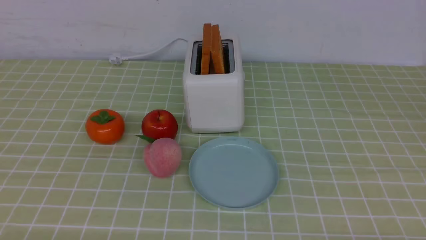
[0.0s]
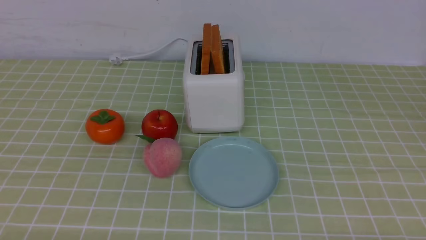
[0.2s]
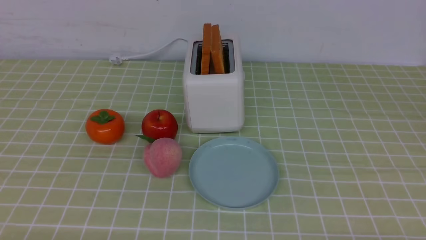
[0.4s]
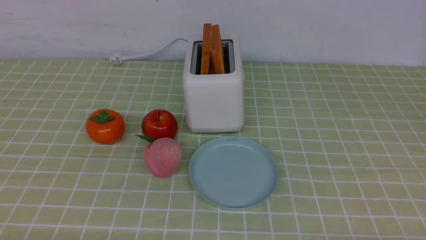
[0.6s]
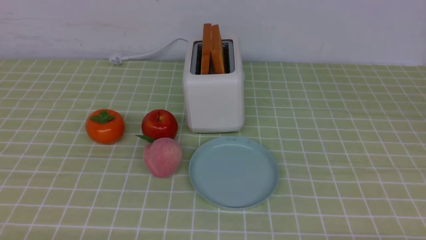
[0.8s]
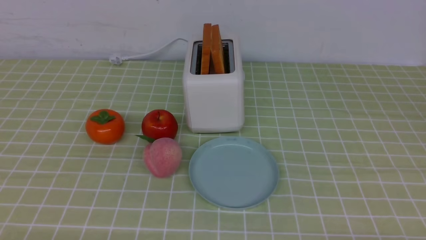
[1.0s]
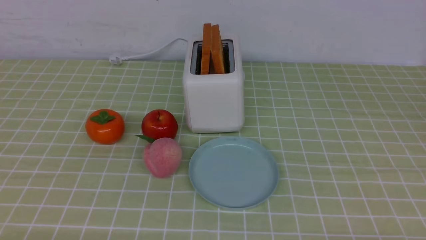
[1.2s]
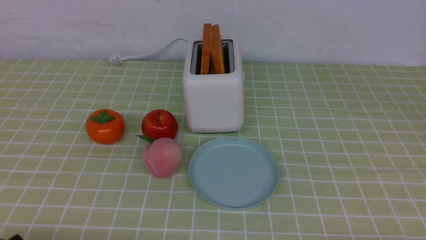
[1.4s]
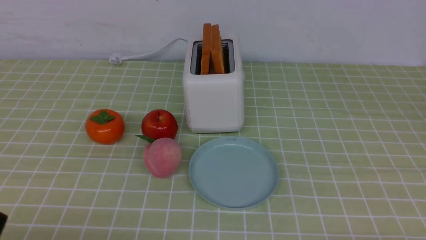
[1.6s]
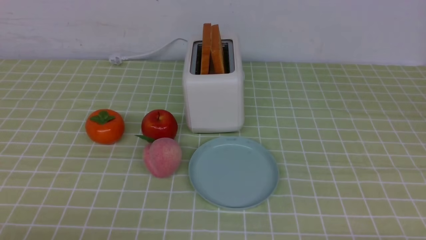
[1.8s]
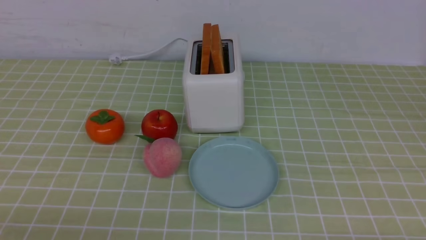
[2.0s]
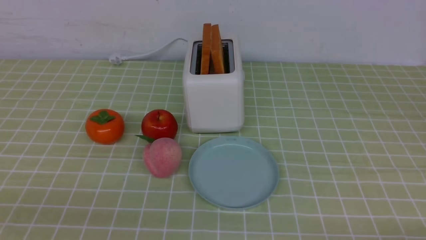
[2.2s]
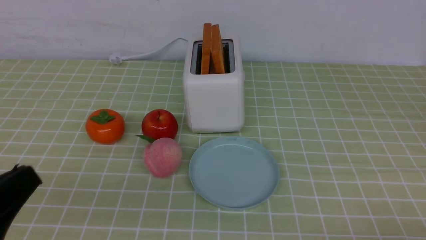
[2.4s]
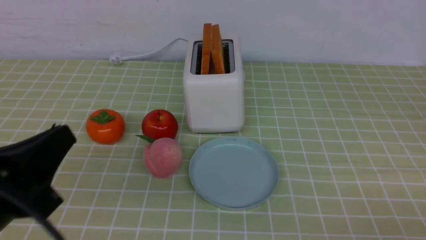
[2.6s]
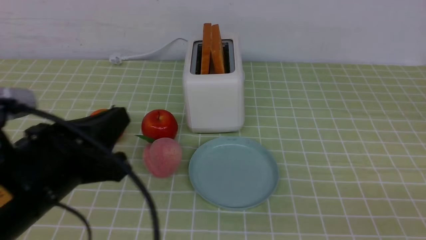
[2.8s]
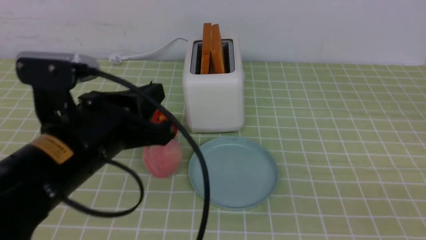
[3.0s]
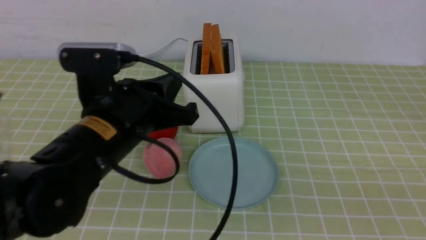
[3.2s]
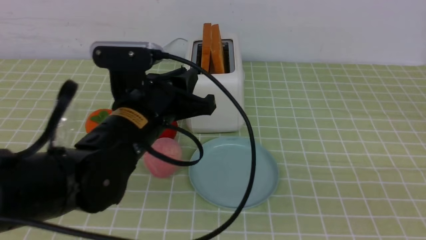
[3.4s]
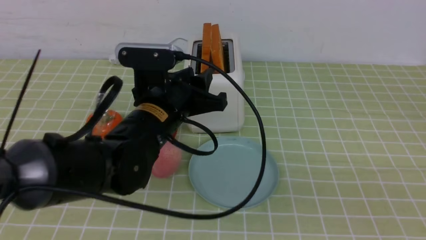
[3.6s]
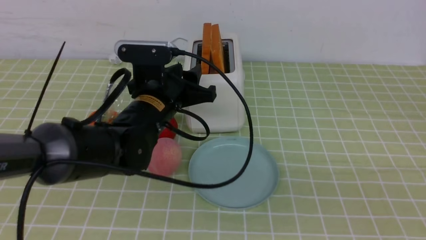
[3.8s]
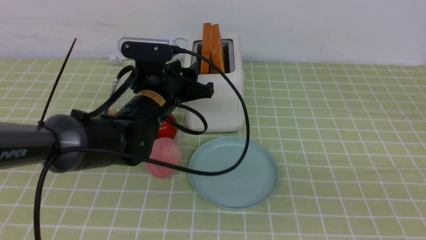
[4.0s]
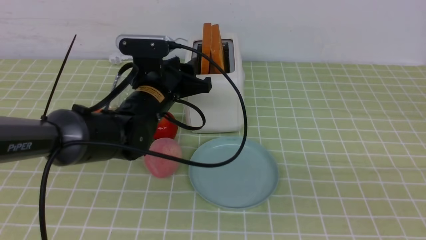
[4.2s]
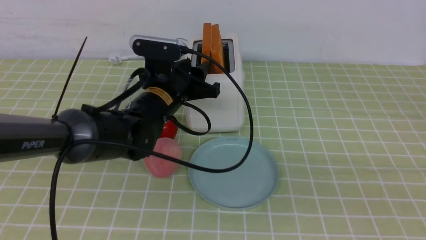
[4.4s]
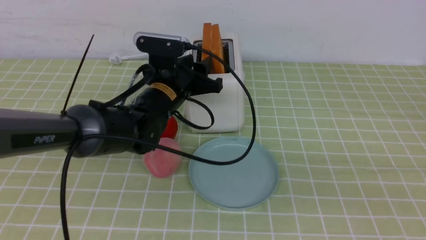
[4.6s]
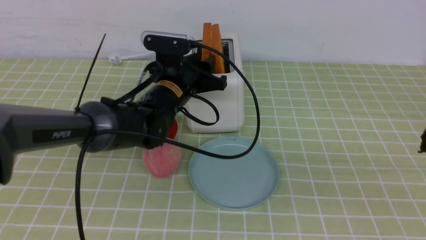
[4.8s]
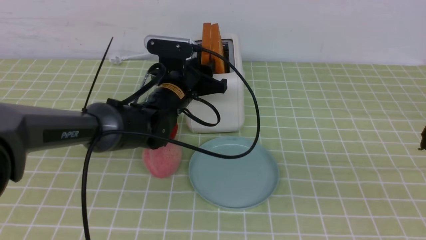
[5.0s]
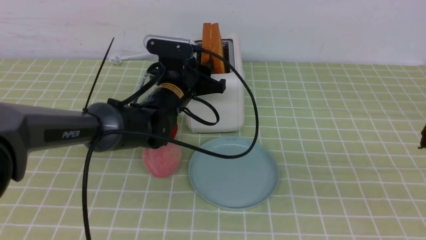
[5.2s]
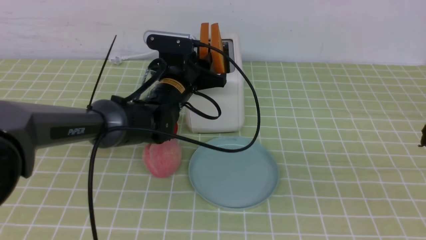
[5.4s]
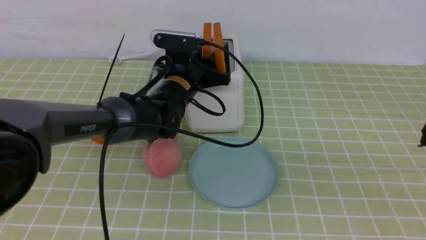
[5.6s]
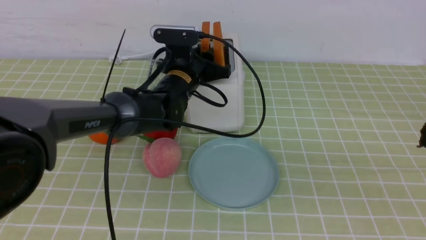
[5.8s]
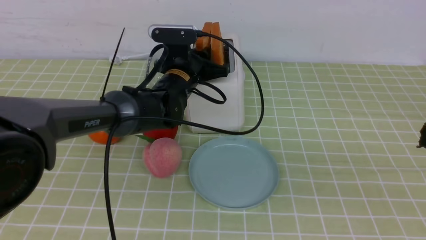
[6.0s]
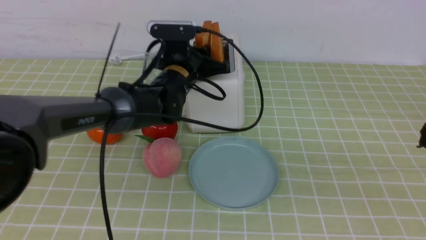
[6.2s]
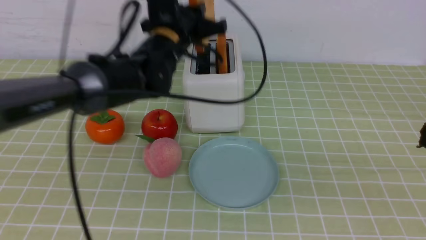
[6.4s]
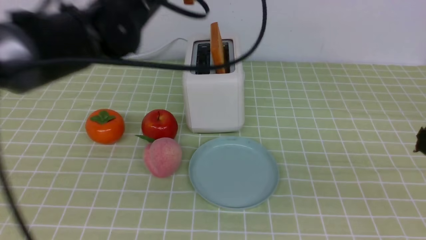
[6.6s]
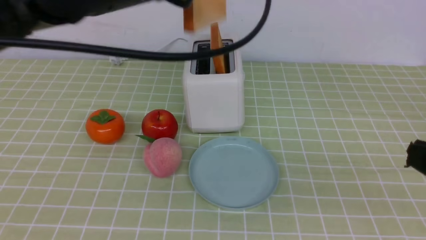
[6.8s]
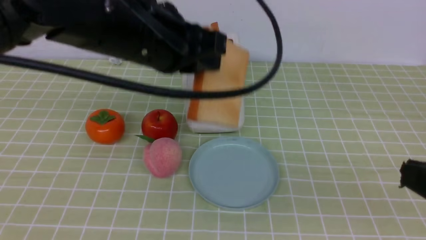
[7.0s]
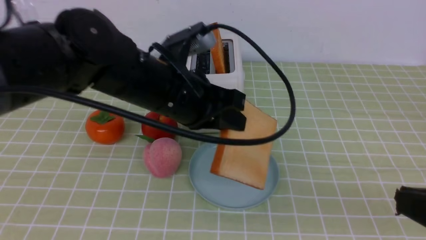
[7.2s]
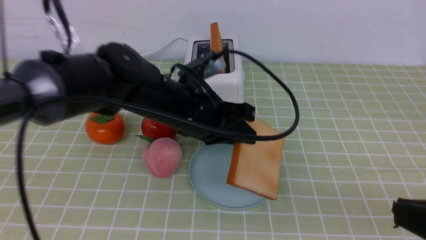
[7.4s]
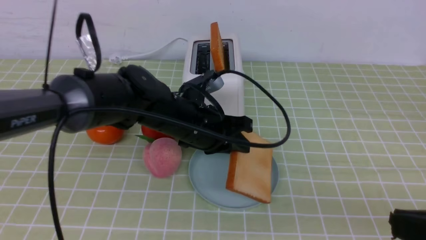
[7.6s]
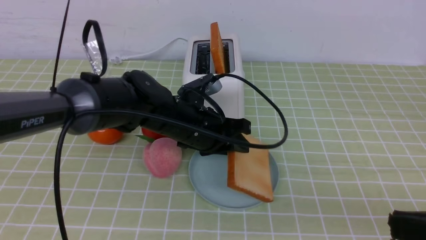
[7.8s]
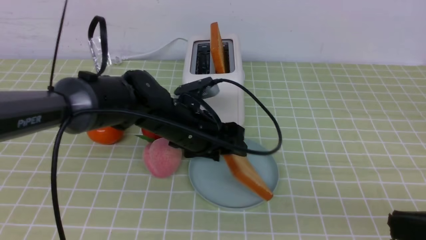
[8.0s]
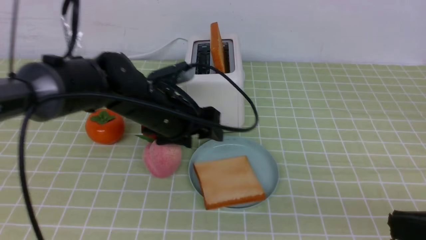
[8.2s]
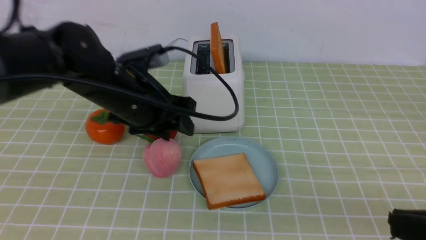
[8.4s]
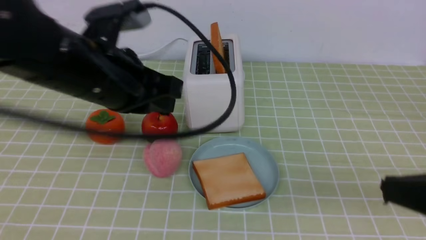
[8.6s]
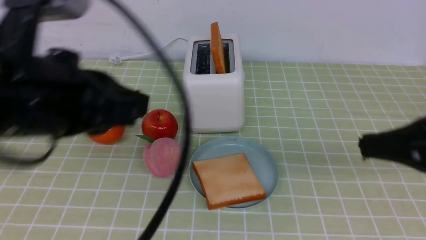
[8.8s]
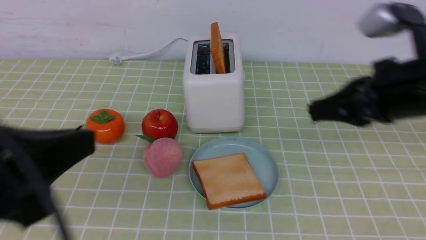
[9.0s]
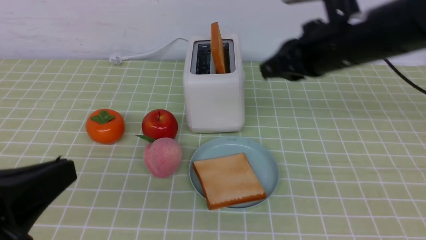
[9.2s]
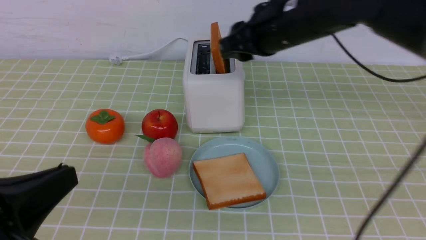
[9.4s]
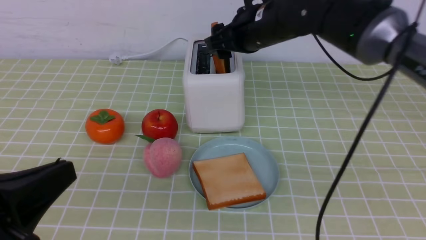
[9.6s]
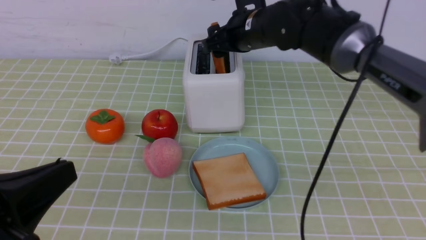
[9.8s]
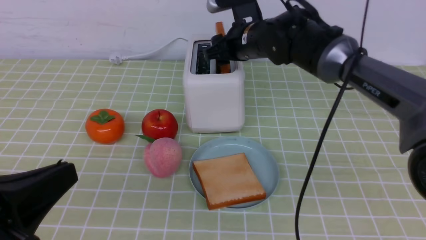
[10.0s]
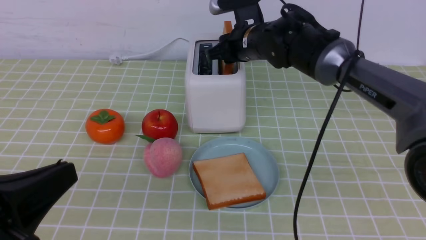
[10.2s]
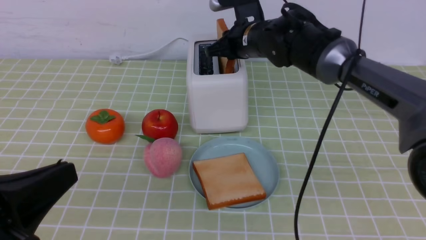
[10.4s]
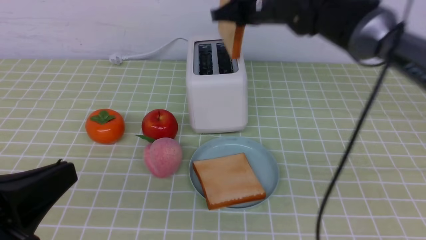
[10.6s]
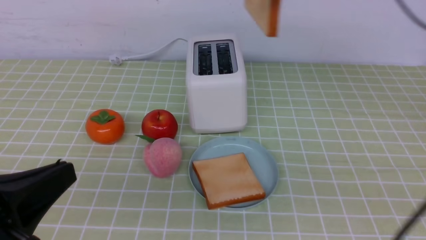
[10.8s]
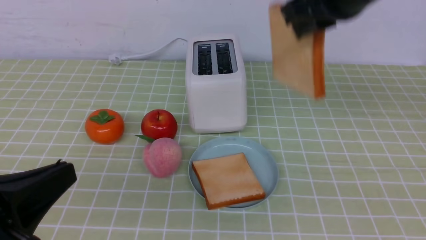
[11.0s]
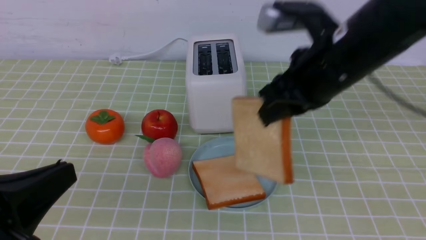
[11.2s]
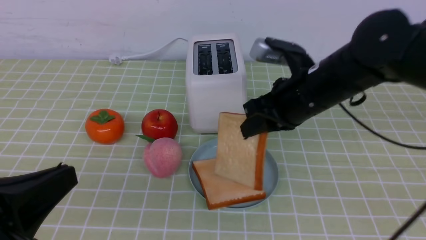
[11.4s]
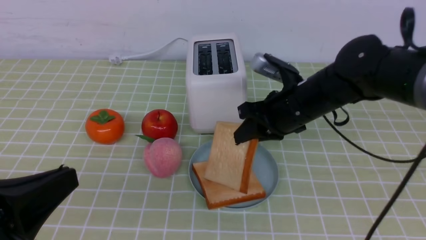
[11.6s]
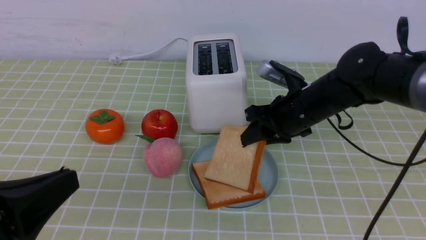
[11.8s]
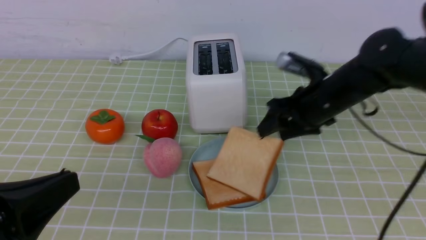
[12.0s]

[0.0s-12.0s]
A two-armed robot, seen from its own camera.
Task of the whole recording: take toasted bread from bread machine on green coffee tablecloth place on plate.
Step, 0.0s to 6.2s: use the left arm to take out a slice of bread.
Step, 6.4s to 8.2s: use the left arm to put a slice of bread into the empty plate.
Step, 8.6s to 10.6s: use the right arm to take out a slice of bread.
1.6s to 3.0s: The left gripper shifts some 20 cm forward, to the right and upward, and closes up, while the right gripper travels upward by approximately 15 cm, and closes up.
3.0s to 4.4s: The left gripper travels forward by approximately 20 cm, and opens its fingers.
4.4s to 6.0s: The left gripper shifts roughly 5 cm forward, and closes.
6.0s to 7.6s: The left gripper heads backward, covering about 10 cm, and reaches approximately 15 cm upward, then returns.
7.6s to 9.0s: The right gripper moves forward, roughly 20 cm; the left gripper heads backward, to the left and upward, covering about 30 cm, and closes.
9.0s to 10.4s: The left gripper ends up approximately 5 cm from where it was. The right gripper moves forward and to the left, roughly 25 cm, and opens and closes again.
10.4s to 12.0s: The right gripper moves to the right and backward, about 15 cm, travels upward and back again, roughly 10 cm each way, and opens up.

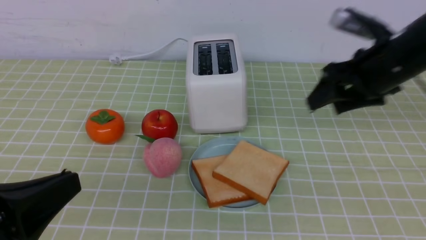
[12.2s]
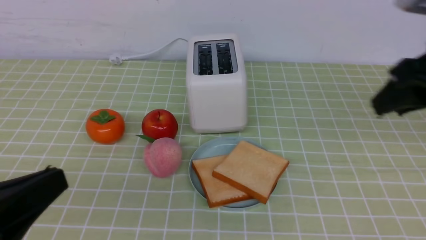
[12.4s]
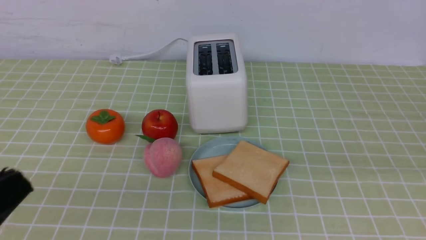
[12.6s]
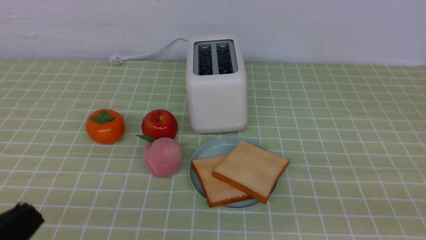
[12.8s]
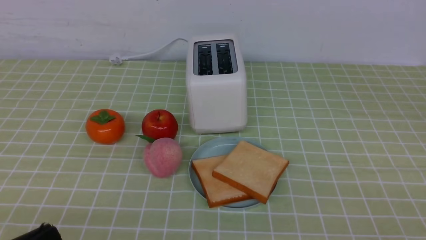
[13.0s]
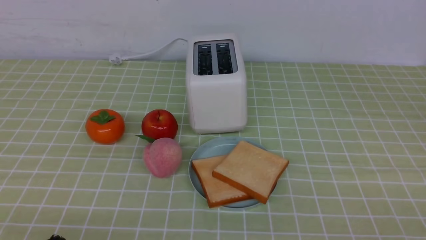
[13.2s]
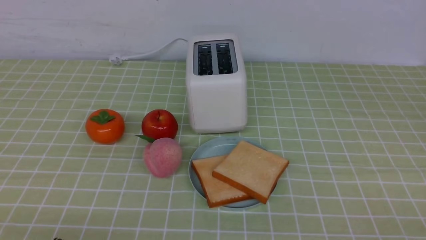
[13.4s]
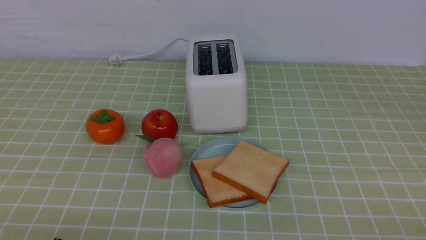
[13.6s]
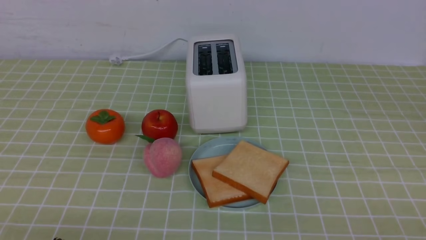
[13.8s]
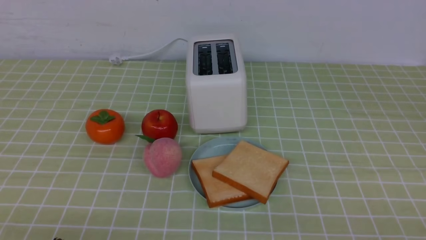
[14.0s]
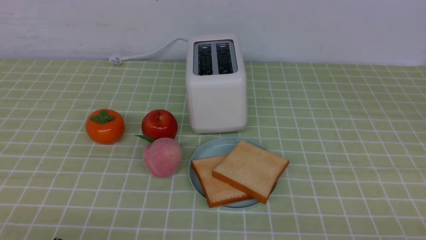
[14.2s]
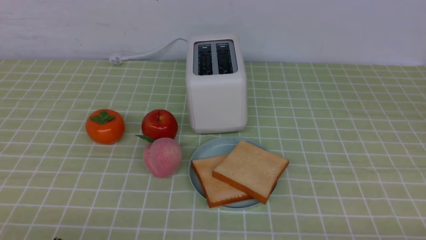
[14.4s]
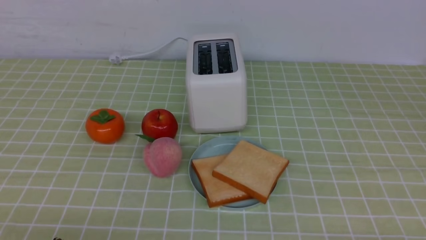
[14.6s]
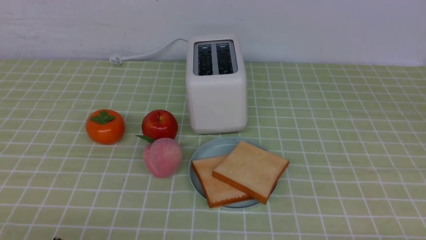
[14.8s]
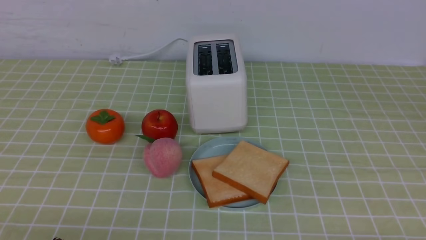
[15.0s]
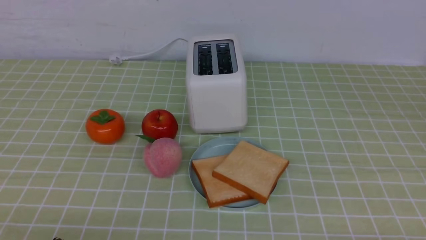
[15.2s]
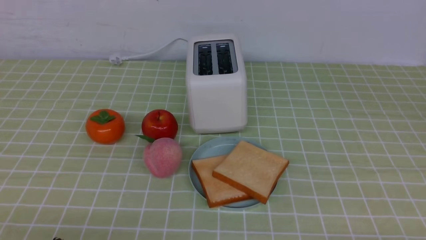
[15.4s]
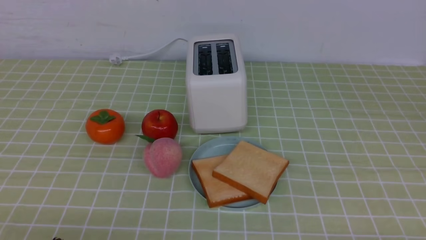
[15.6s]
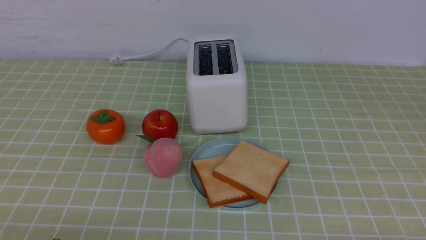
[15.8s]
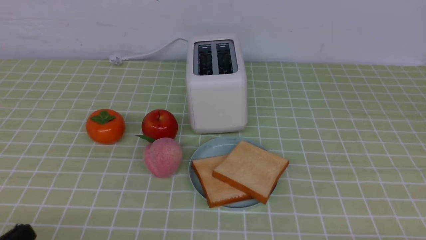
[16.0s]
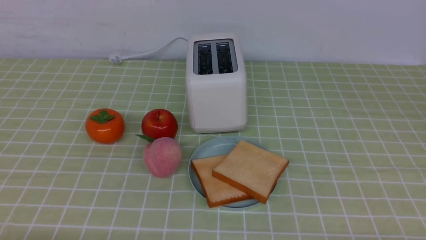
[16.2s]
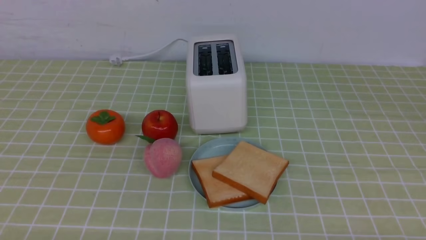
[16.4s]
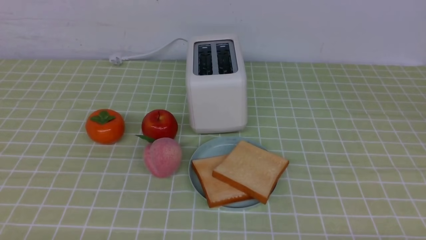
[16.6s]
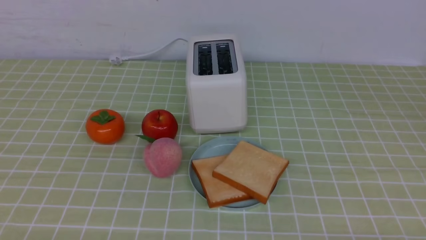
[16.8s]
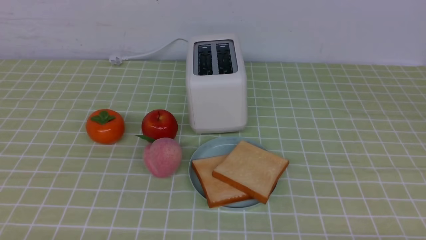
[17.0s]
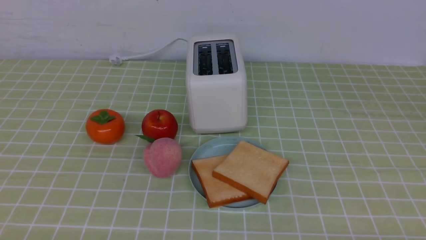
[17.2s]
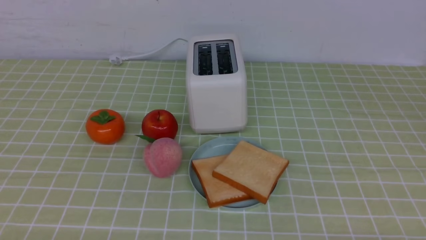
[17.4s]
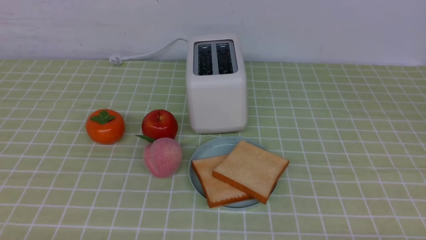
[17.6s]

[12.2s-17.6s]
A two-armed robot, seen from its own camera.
Task of the whole recording: take toasted bread from bread machine on green coffee tablecloth place on plate.
12.2s to 13.6s: The right gripper heads backward, covering approximately 30 cm, and closes up. Meanwhile the left gripper heads downward, covering roughly 10 cm.
